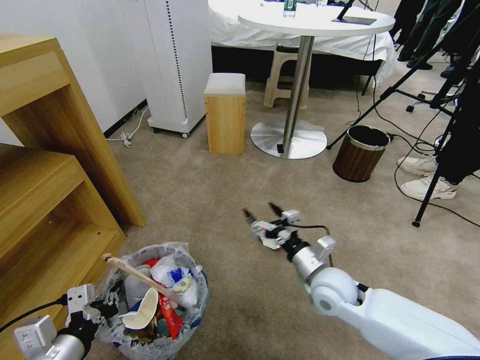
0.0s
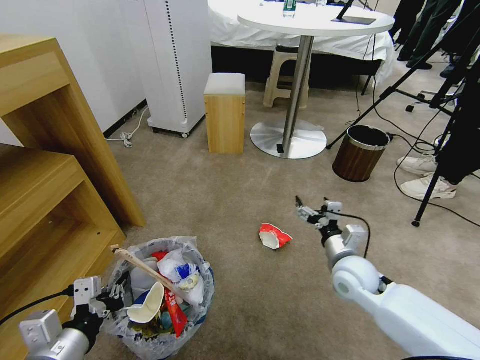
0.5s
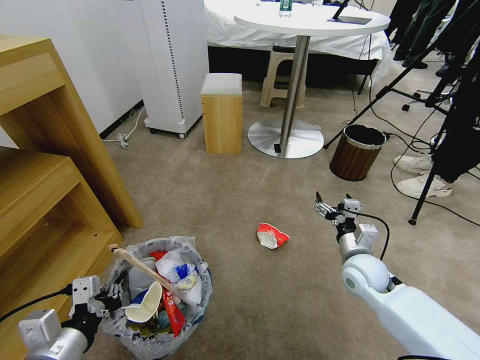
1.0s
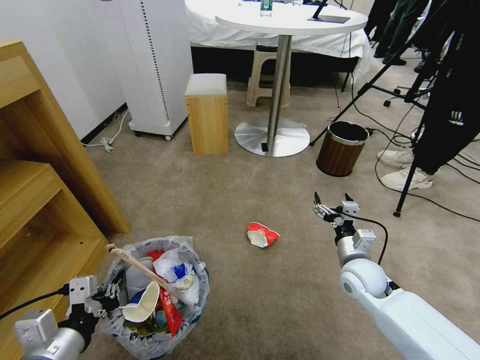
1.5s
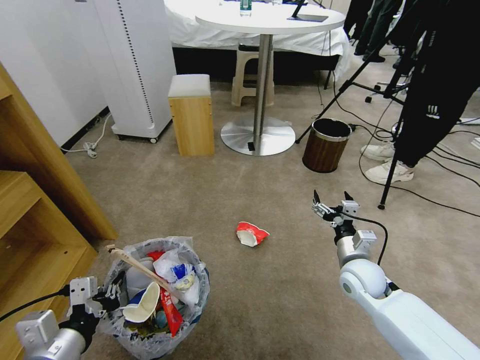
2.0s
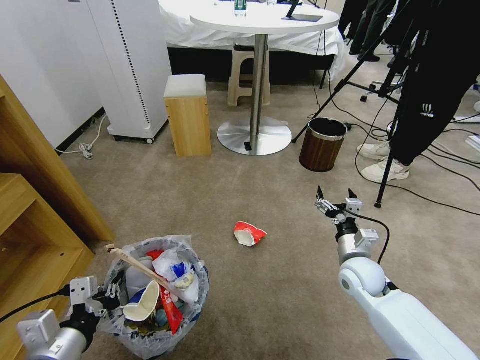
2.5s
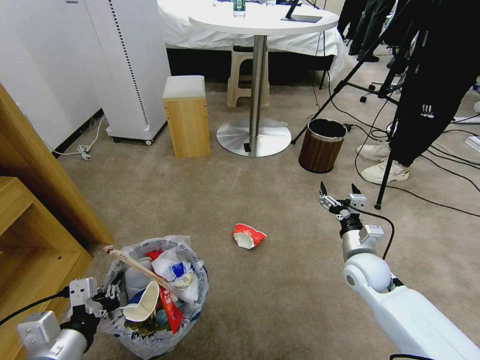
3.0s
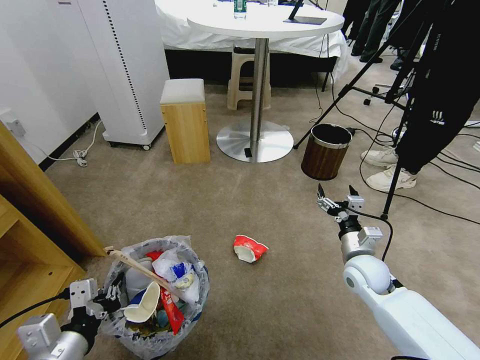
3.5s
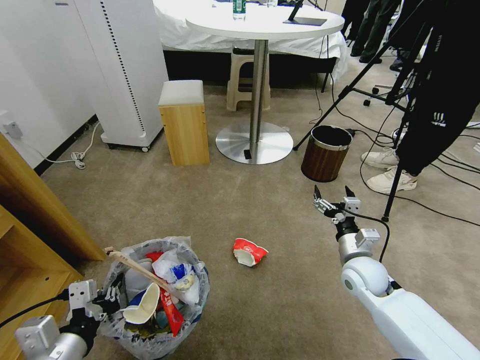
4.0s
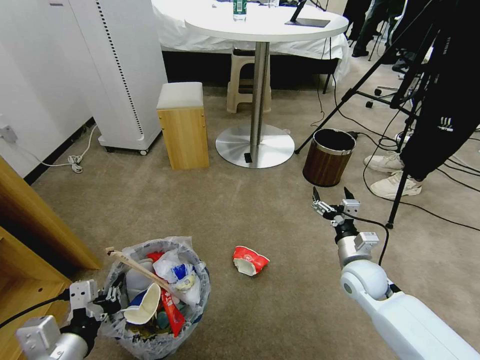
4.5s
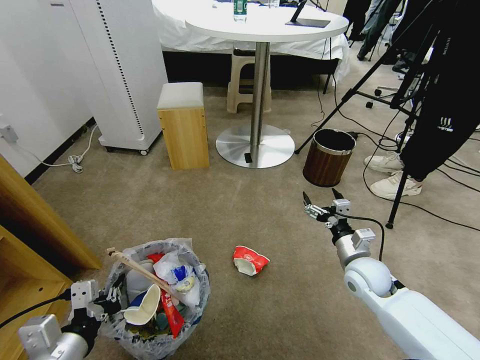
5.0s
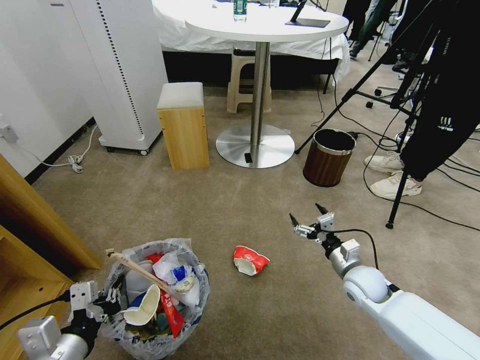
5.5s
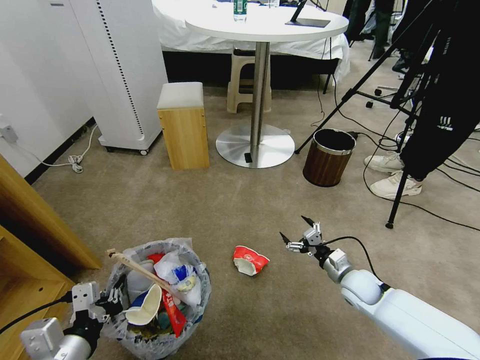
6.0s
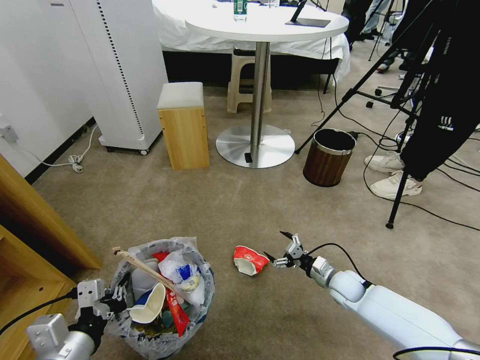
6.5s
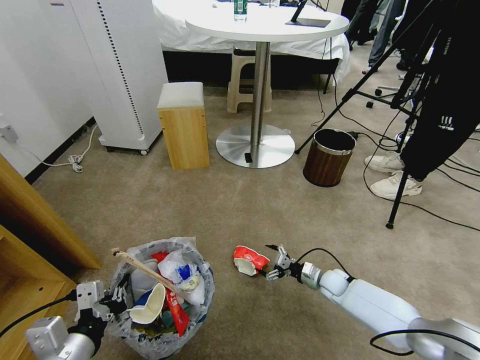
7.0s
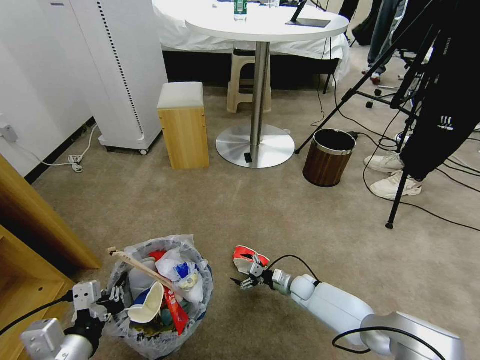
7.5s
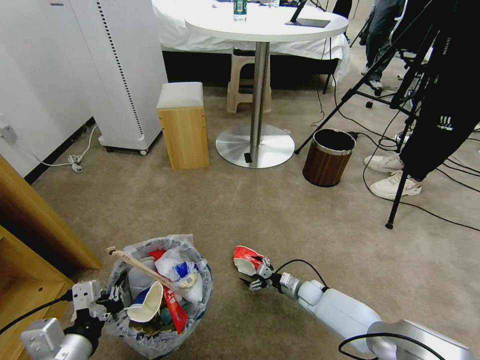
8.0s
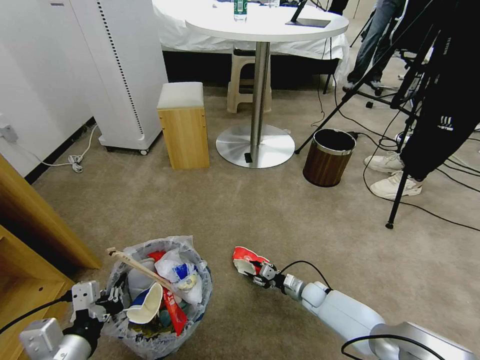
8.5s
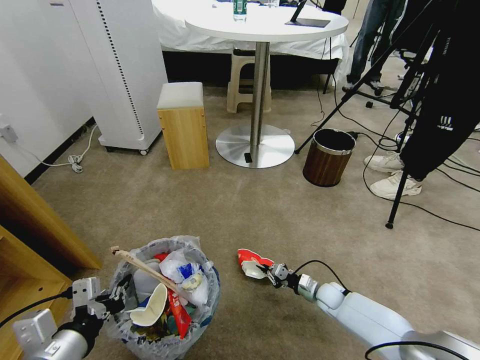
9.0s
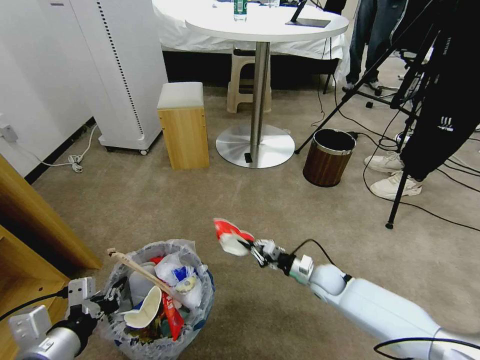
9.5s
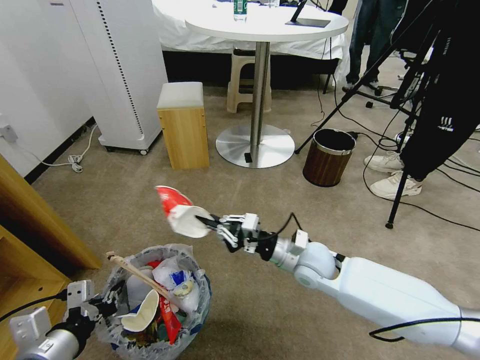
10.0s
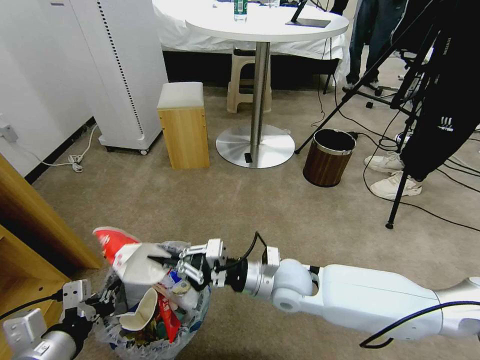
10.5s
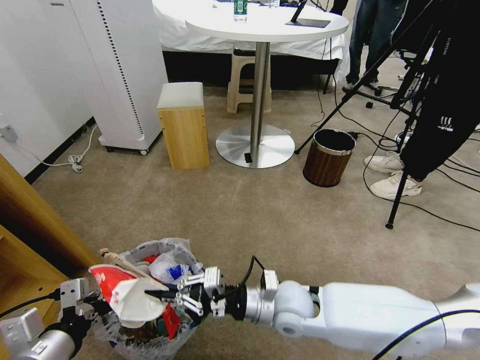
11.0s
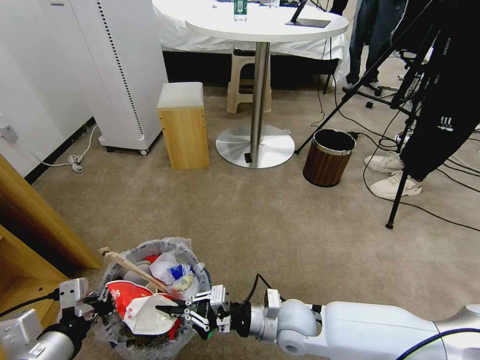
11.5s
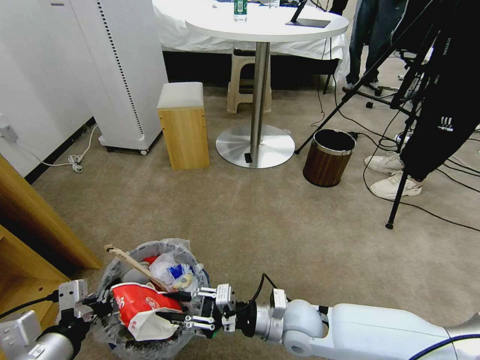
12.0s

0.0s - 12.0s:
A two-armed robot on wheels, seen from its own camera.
Task of the whole recording: Pick up the trash bin and place the garbage on the floor into it.
0.0s - 2.0s: The right gripper goes roughly 10 cm to the right.
4.0s - 6.0s: The right gripper is displaced downward by some 10 cm.
6.0s - 8.0s: The right gripper moves downward and to the left, some 15 cm.
8.0s - 10.0s: The right gripper shifts about 25 cm upward, and closes up.
10.0s - 12.0s: The right gripper is displaced backward and to the left by approximately 15 cm.

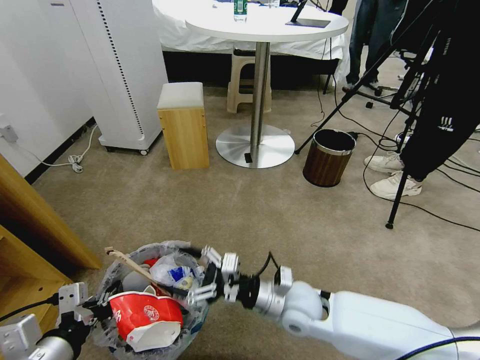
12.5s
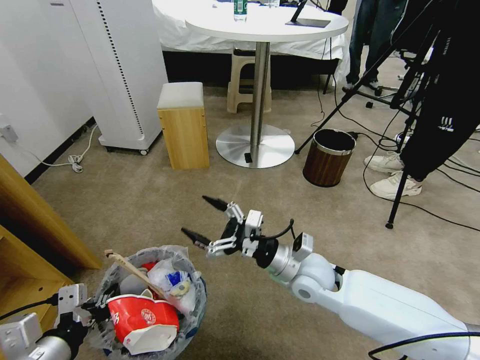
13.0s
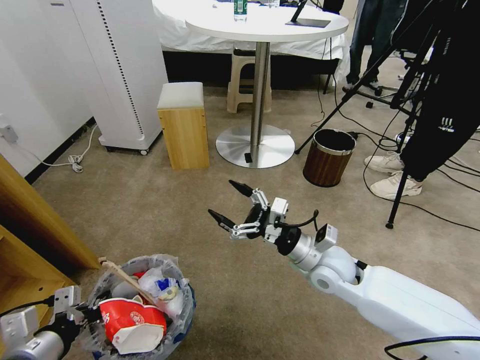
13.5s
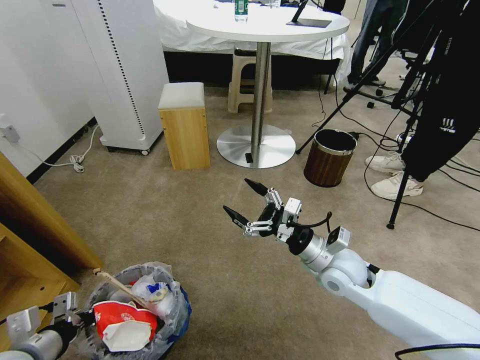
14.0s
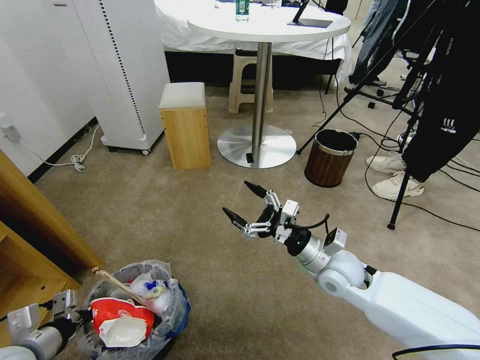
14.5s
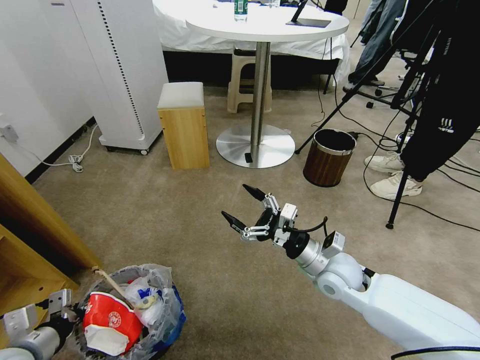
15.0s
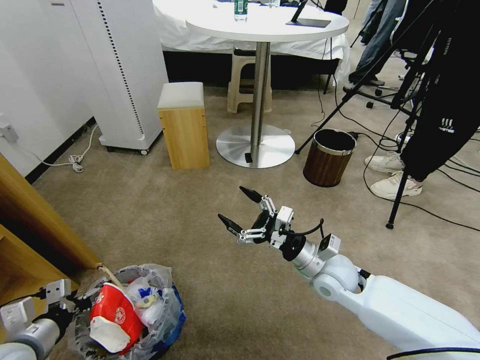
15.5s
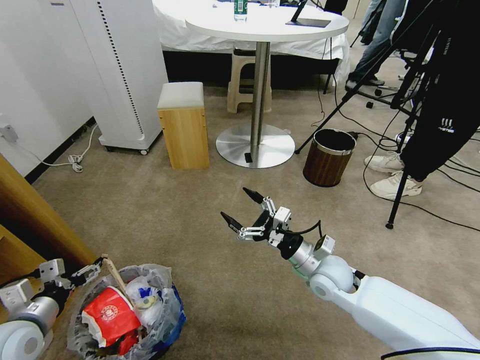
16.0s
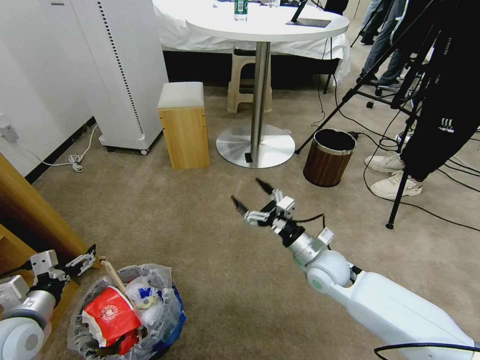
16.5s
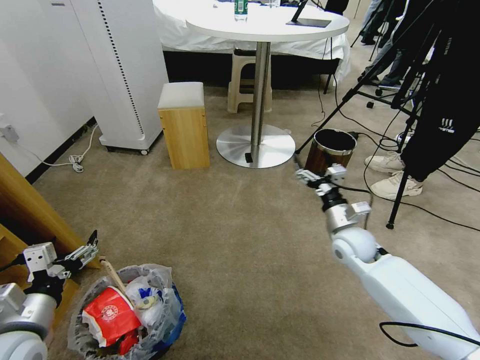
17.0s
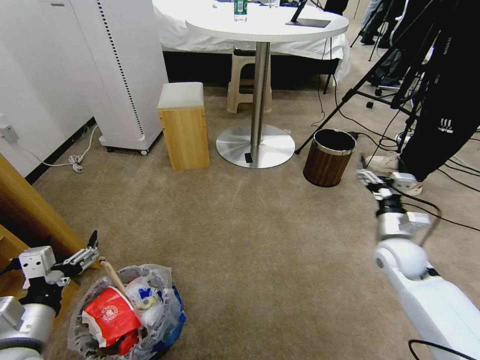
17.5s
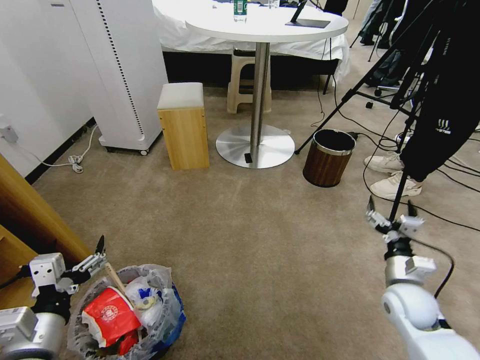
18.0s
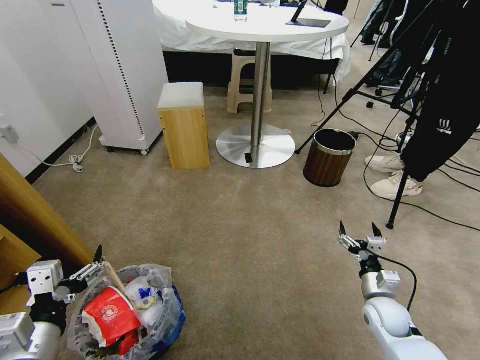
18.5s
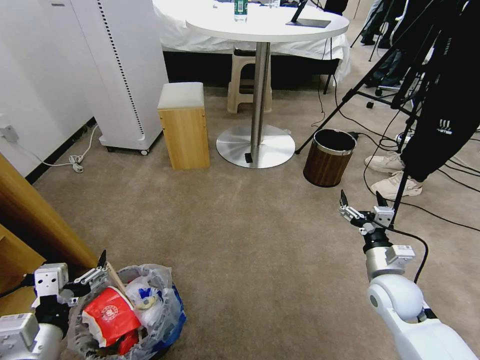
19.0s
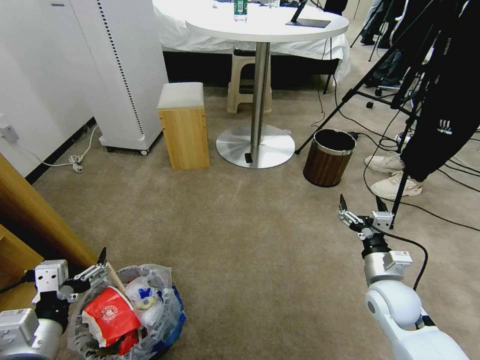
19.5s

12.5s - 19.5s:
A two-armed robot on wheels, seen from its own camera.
Task of the whole recording: Pick up the trash bin and place the garbage on the floor into it.
12.5s - 14.5s: The left gripper is displaced to the left, downward and forward by some 15 cm. The right gripper travels to the right and forward by some 10 cm.
14.5s - 16.0s: The left gripper opens up.
16.0s - 17.5s: The right gripper travels to the right by about 15 cm. Meanwhile the left gripper moves to the right, upward and backward, roughly 10 cm.
17.5s - 19.5s: The right gripper is displaced backward by about 10 cm, and travels downward and back again, approximately 15 cm each way.
